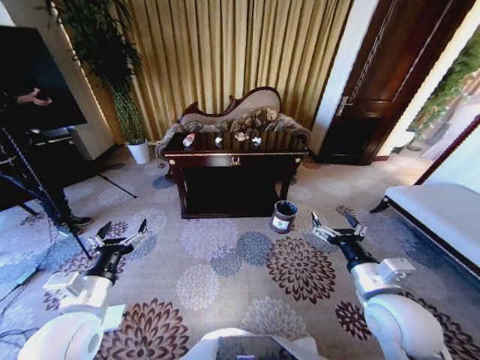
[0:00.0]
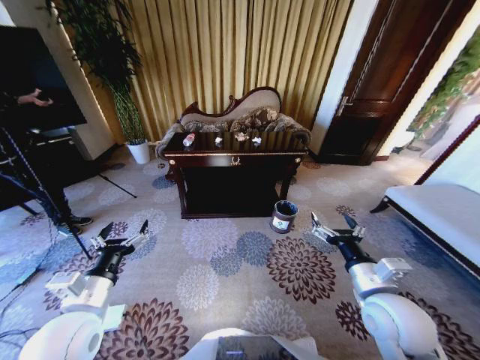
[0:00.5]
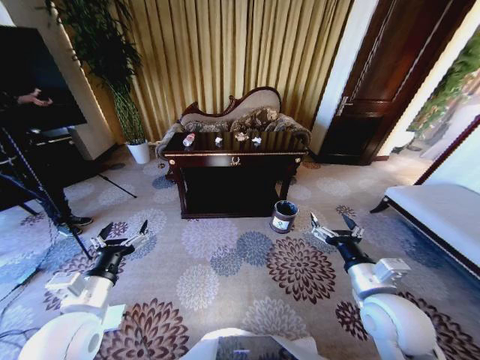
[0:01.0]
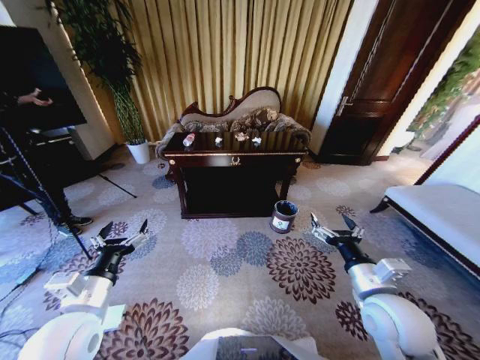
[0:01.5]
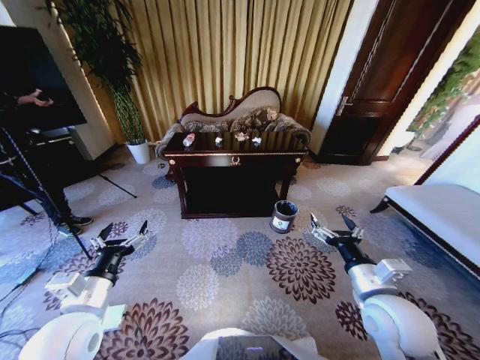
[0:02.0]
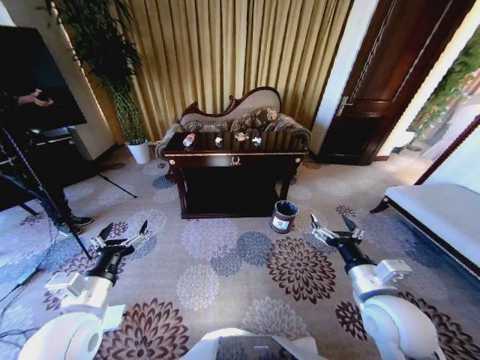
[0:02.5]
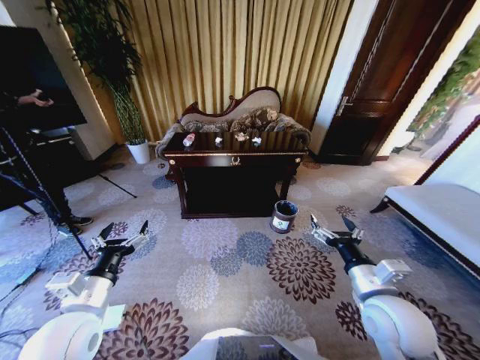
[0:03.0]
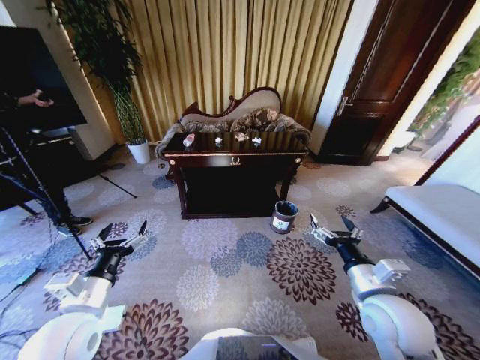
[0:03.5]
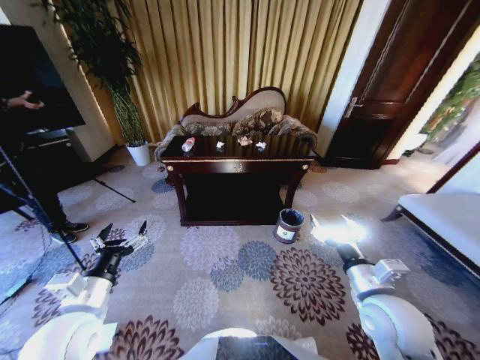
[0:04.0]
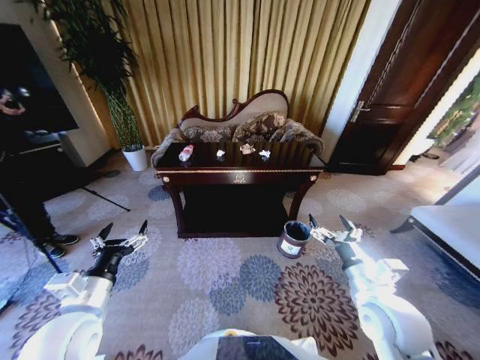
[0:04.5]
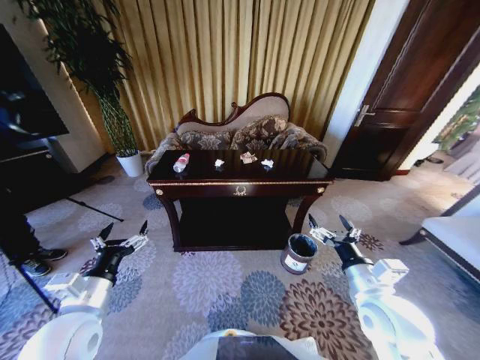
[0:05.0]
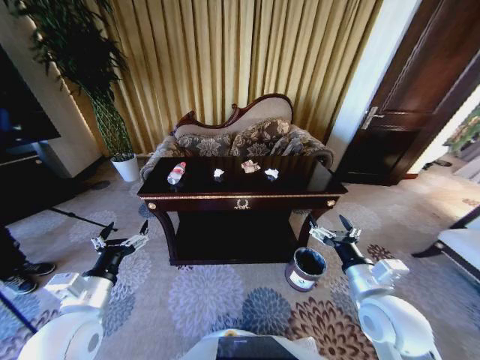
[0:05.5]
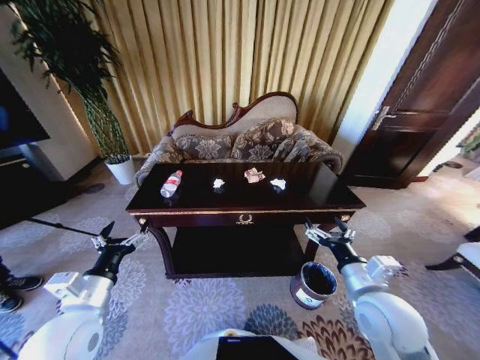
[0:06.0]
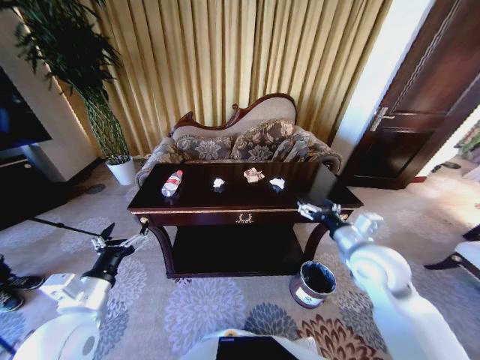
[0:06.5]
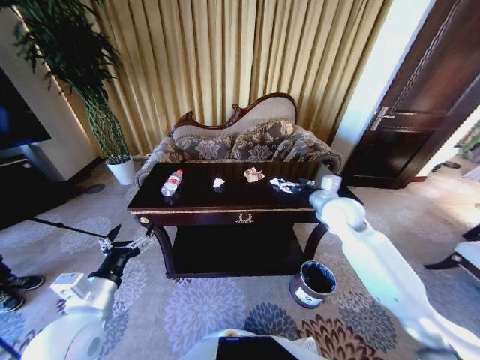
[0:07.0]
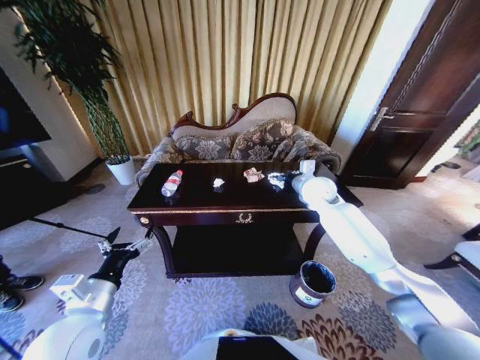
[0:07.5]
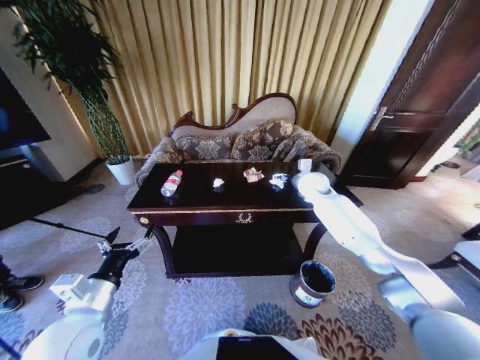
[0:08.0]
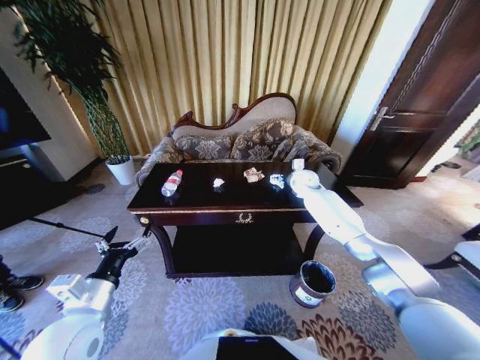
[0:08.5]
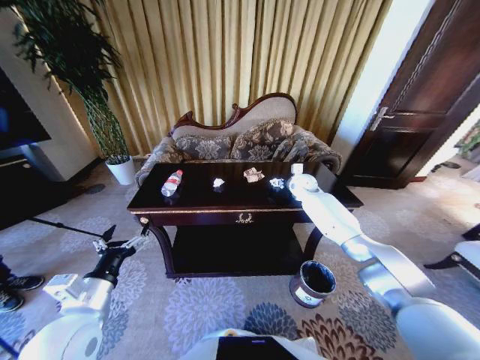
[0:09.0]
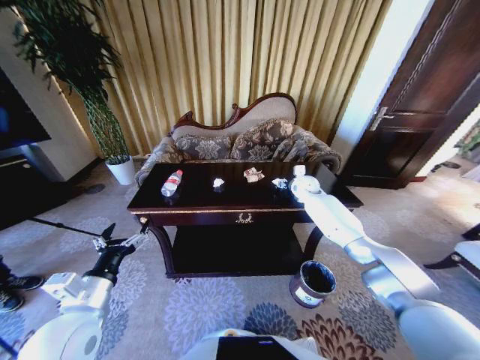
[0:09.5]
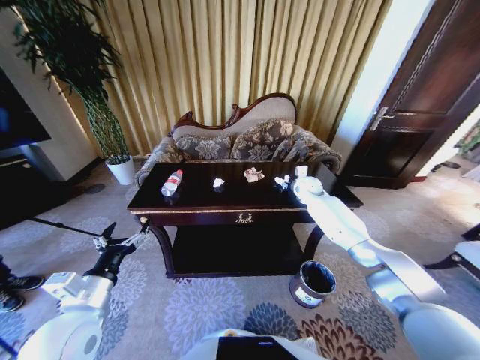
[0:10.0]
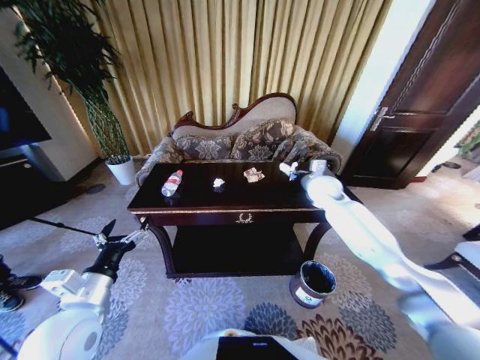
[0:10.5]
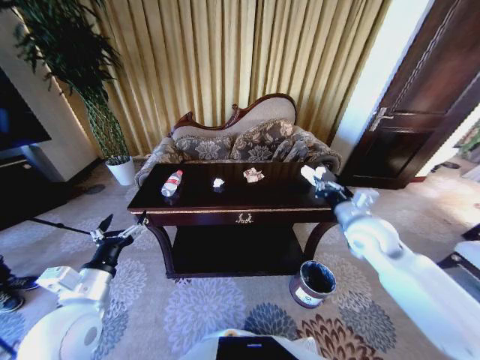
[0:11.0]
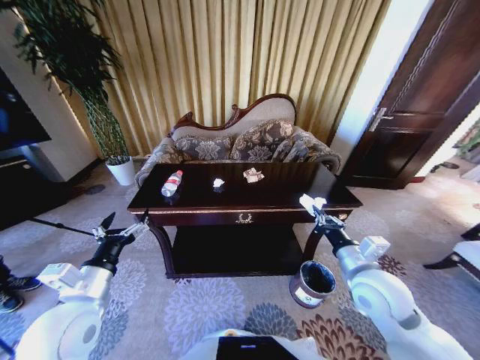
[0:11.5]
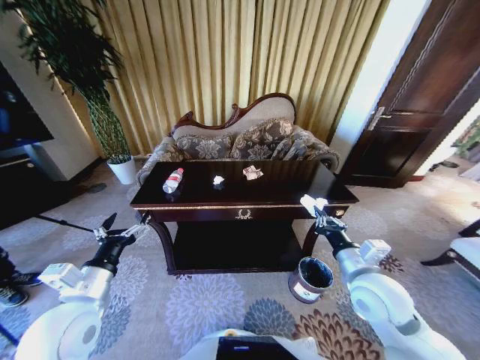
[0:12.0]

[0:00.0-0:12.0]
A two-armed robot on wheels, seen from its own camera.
Task of the whole recording: Move to the front of the table and place the trash on the table into the trash bin.
0:06.0 to 0:08.0: The right gripper is displaced forward by approximately 40 cm.
0:08.0 to 0:10.0: The right gripper shifts by some 5 cm, and closes.
0:10.0 to 0:12.0: The right gripper moves backward, about 40 cm.

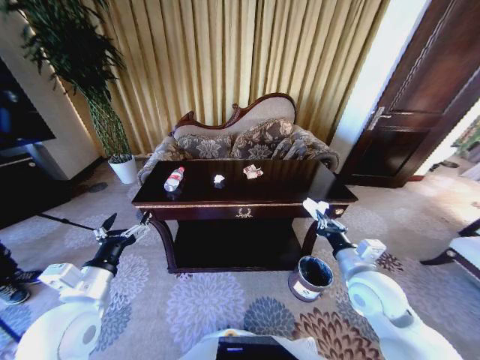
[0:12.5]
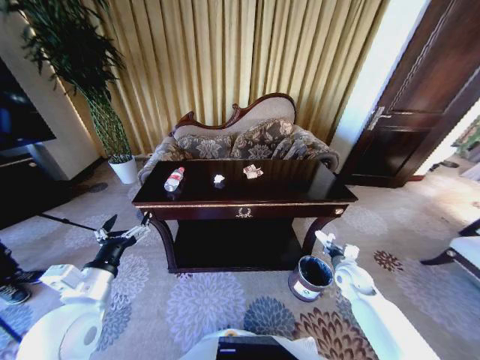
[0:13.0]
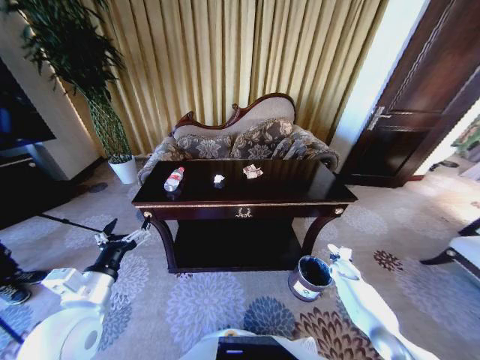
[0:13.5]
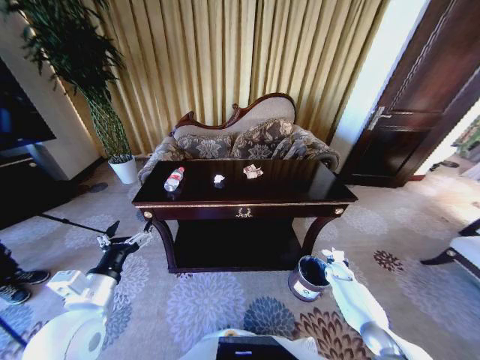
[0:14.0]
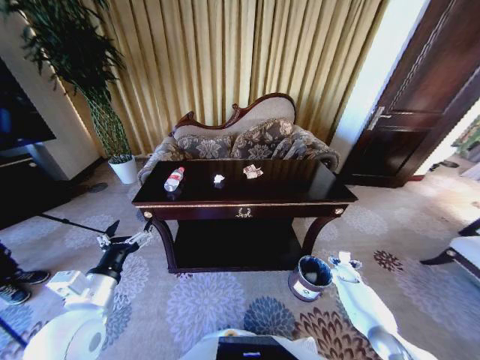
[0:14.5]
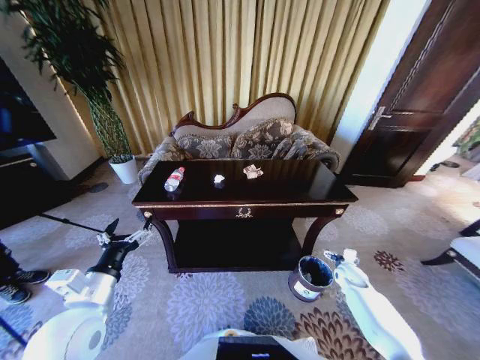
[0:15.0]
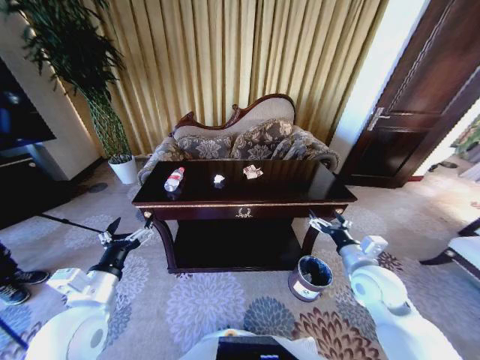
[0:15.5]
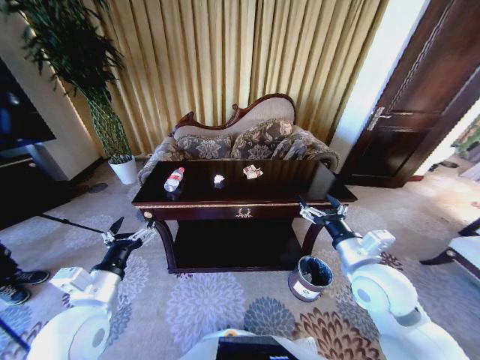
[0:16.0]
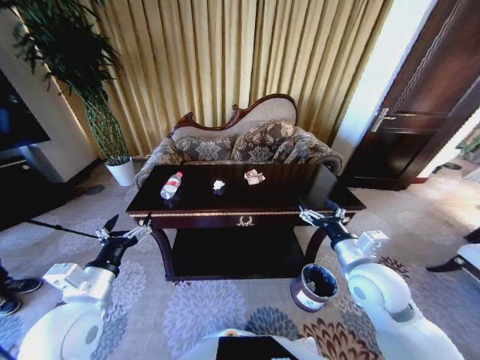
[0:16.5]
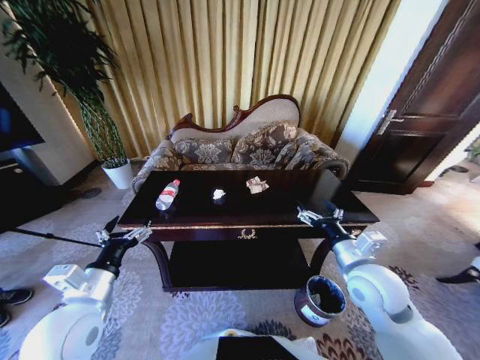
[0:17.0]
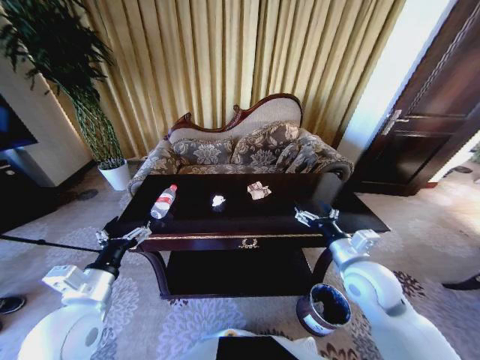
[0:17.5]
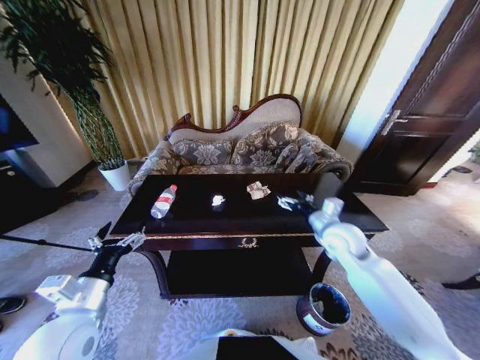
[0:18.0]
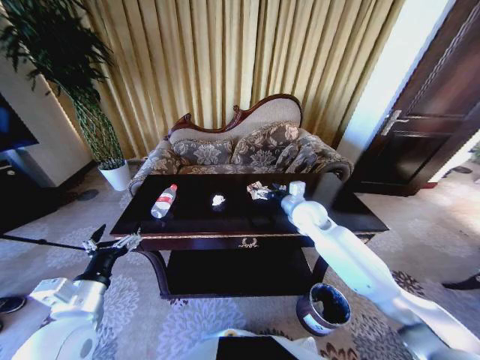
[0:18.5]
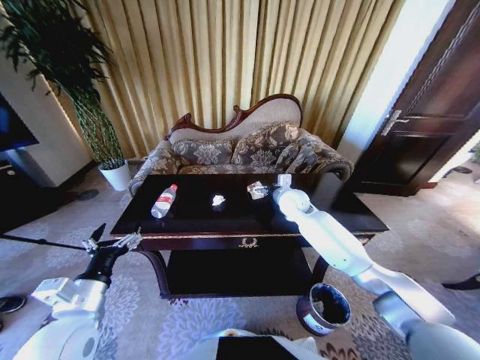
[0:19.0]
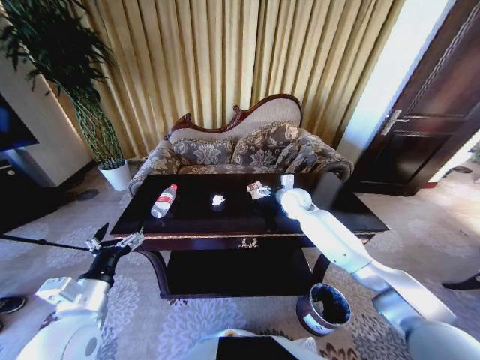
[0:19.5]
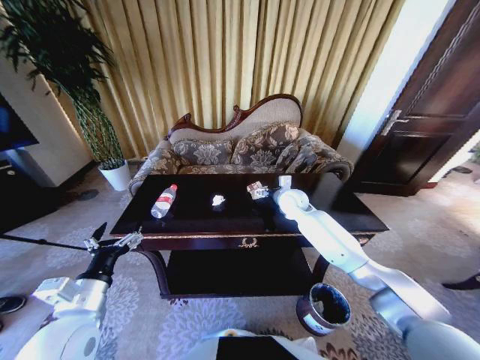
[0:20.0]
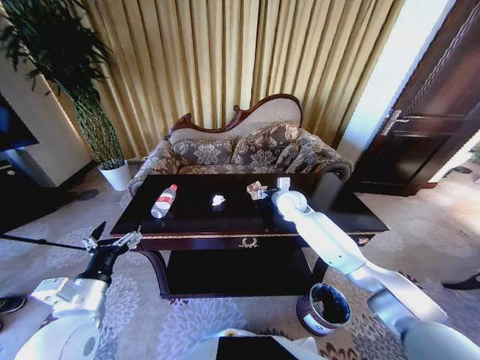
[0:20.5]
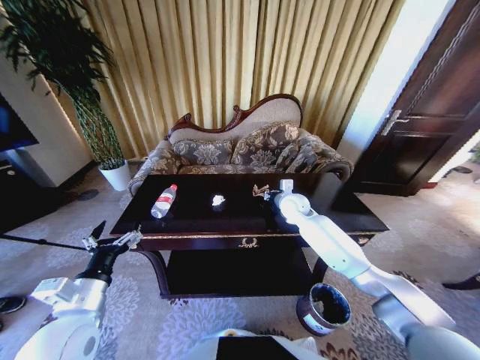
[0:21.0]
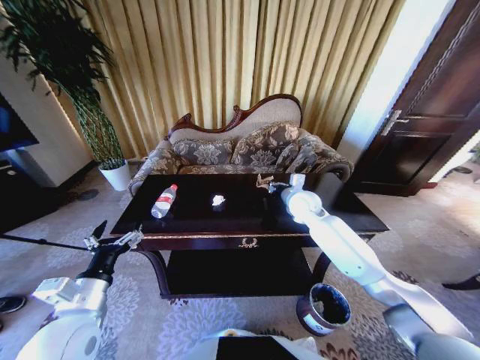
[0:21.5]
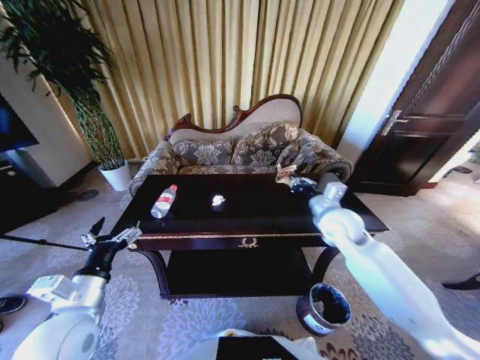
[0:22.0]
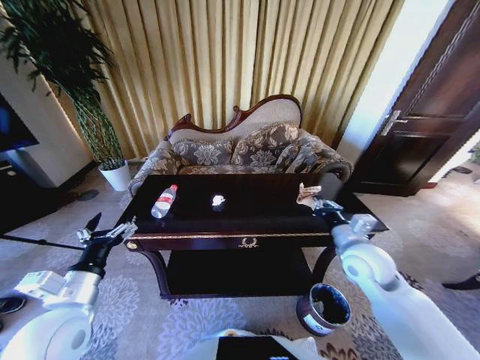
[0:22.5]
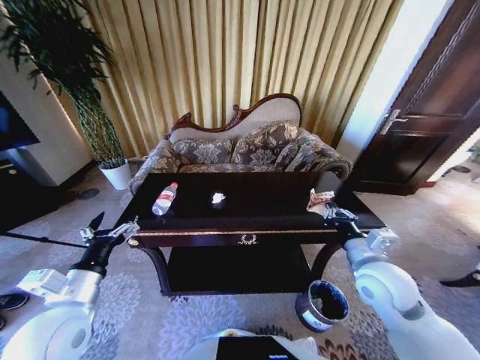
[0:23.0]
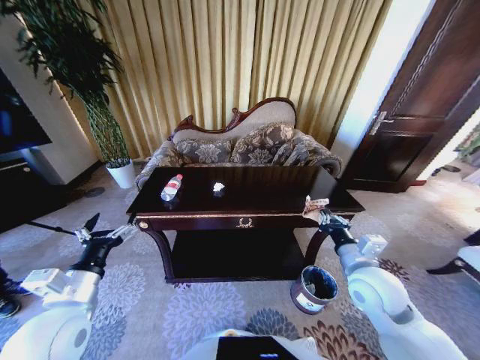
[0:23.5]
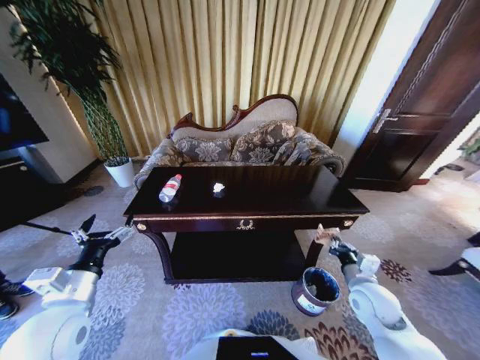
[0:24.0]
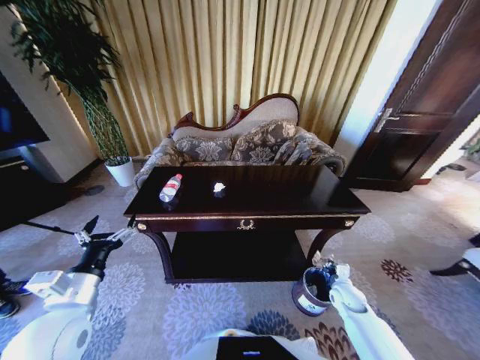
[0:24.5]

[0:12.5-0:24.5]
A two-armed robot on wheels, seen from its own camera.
Task of the whole recording: Move to the front of the table and place the trash on the table into the trash bin.
0:12.5 to 0:14.5: The right gripper shifts approximately 35 cm downward, to the right and forward, and opens up.
0:14.5 to 0:16.5: The right gripper heads upward and to the left, covering some 35 cm.
0:16.5 to 0:18.5: The right gripper heads forward, covering approximately 20 cm.
0:18.5 to 0:20.5: The right gripper moves forward, some 5 cm, and closes.
0:20.5 to 0:22.5: The right gripper travels backward and to the right by about 25 cm, and closes its fingers.
0:22.5 to 0:24.5: The right gripper heads downward, covering roughly 25 cm.

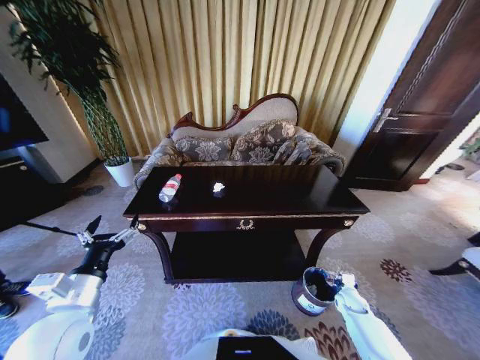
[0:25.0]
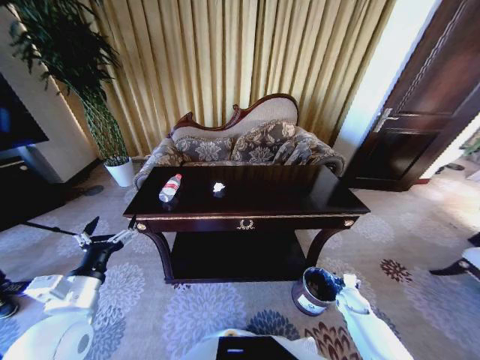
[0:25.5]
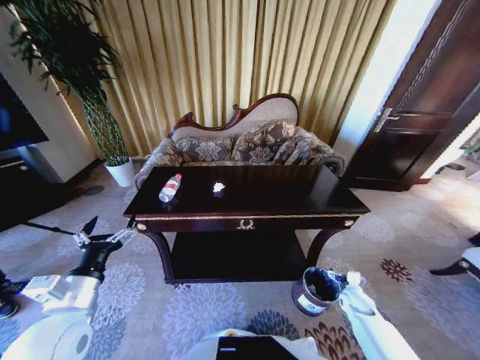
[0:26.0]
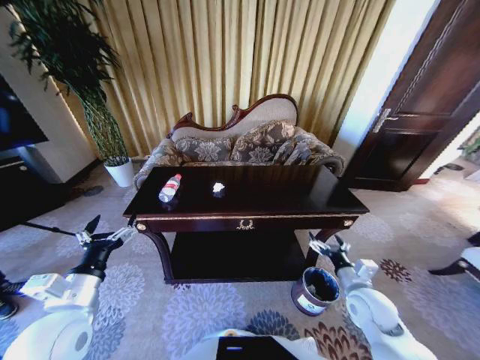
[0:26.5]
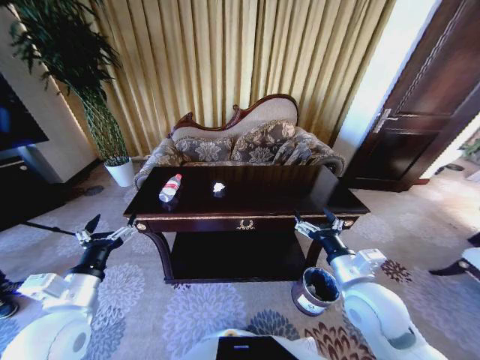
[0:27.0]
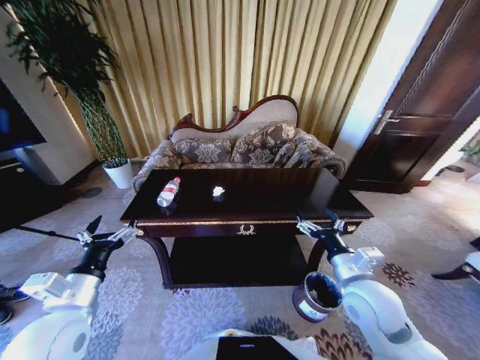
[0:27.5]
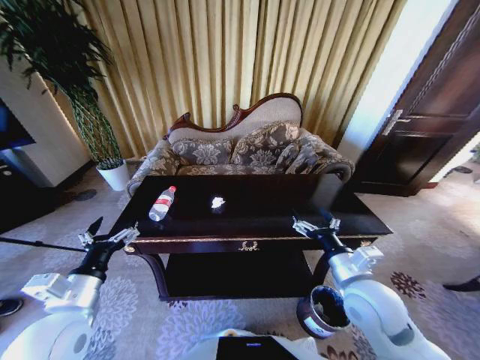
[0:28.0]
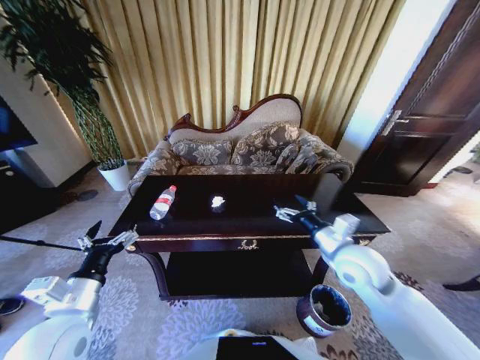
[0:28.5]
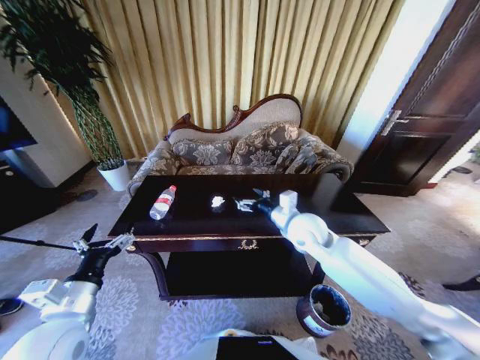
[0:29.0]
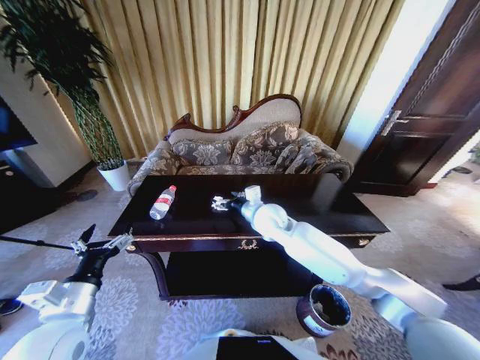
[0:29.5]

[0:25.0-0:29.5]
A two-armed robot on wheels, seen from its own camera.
Task of the whole recording: Move to the front of the table and place the trash on the table into the trash bin.
0:25.0 to 0:27.0: The right gripper travels upward and to the left by roughly 35 cm, and opens up.
0:27.0 to 0:29.5: The right gripper goes roughly 25 cm forward and to the left.
